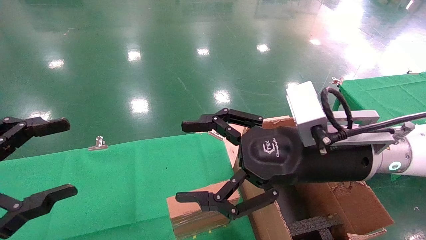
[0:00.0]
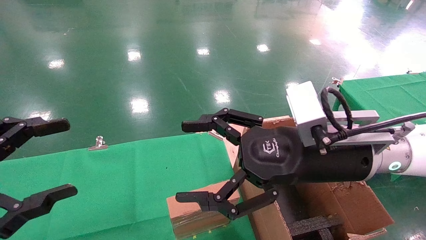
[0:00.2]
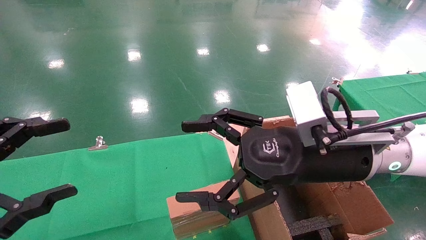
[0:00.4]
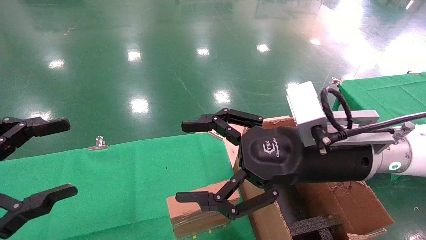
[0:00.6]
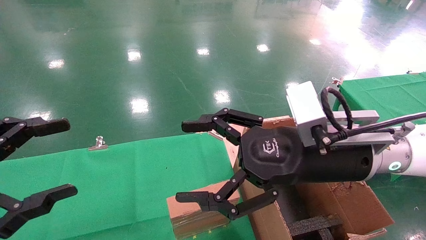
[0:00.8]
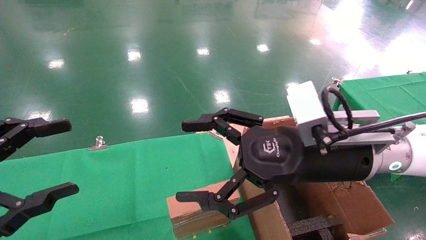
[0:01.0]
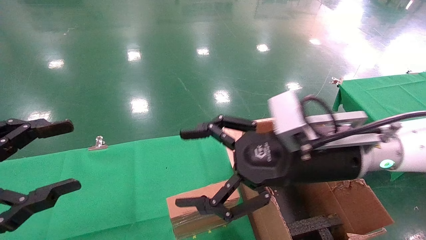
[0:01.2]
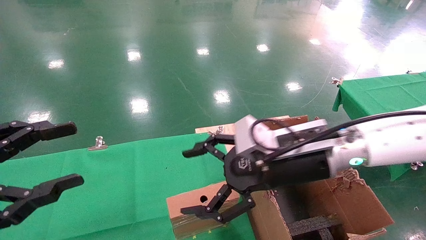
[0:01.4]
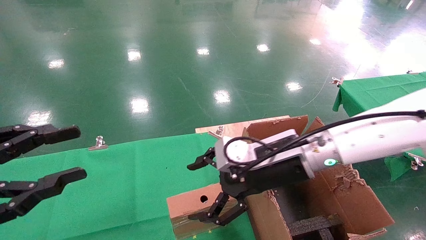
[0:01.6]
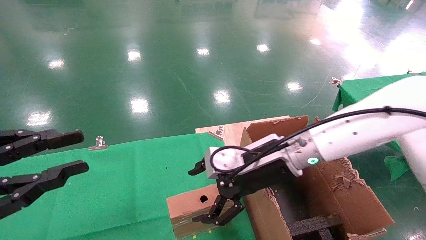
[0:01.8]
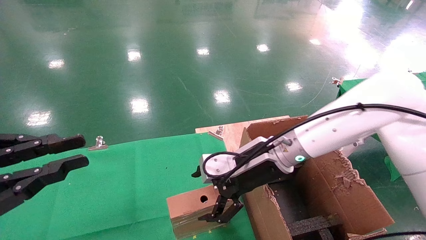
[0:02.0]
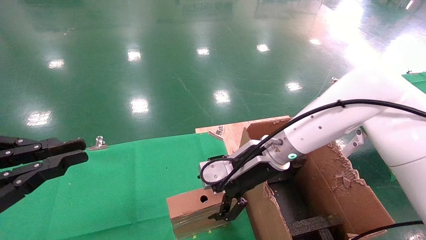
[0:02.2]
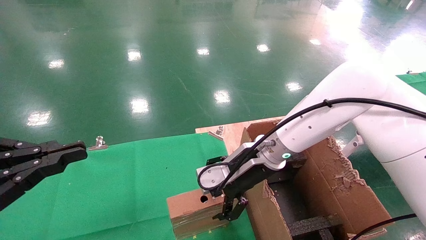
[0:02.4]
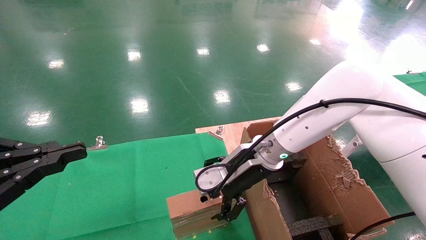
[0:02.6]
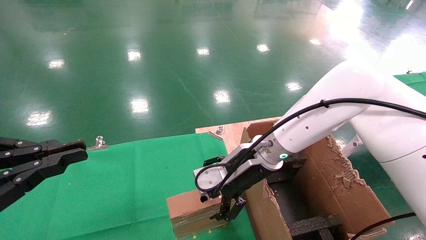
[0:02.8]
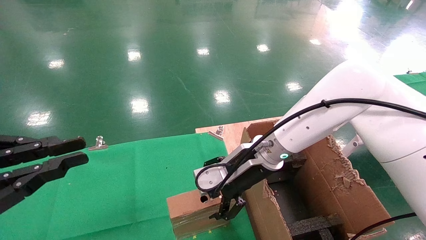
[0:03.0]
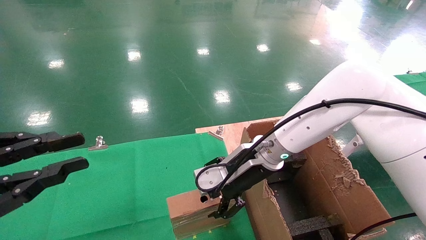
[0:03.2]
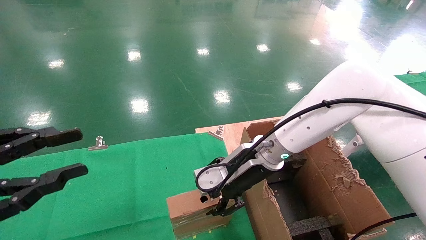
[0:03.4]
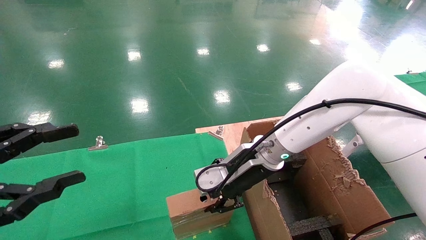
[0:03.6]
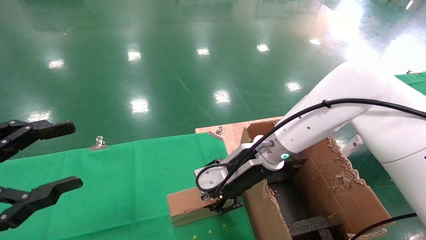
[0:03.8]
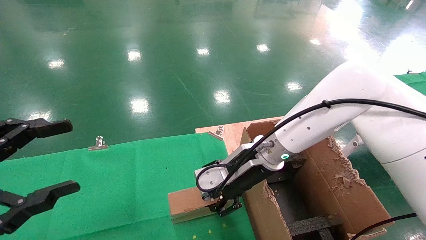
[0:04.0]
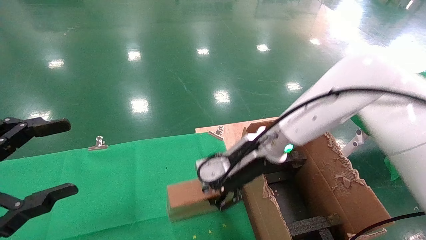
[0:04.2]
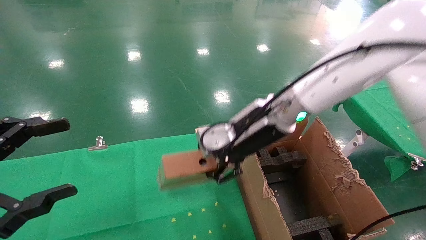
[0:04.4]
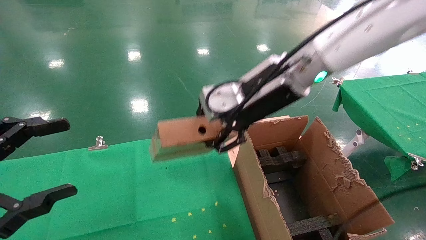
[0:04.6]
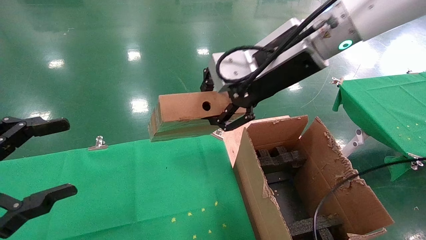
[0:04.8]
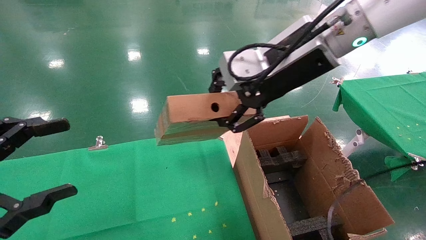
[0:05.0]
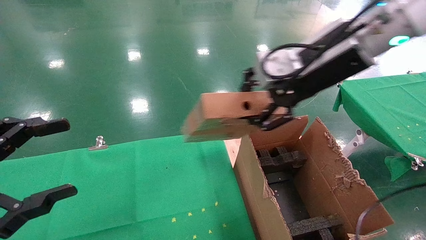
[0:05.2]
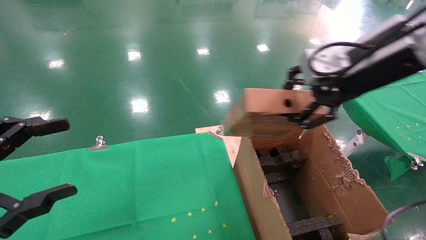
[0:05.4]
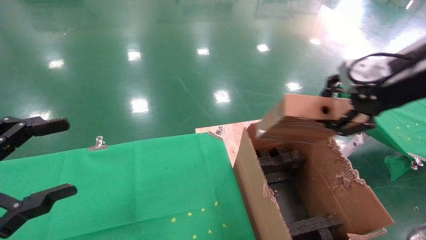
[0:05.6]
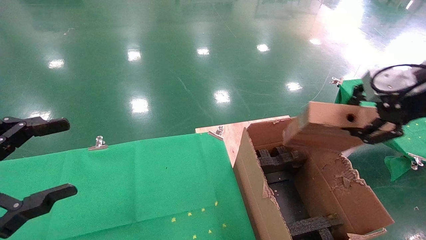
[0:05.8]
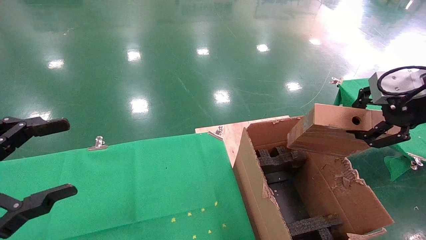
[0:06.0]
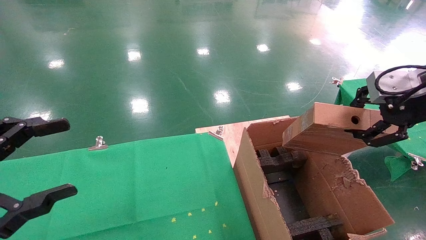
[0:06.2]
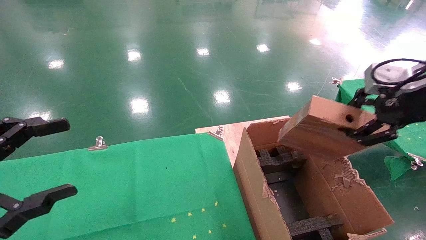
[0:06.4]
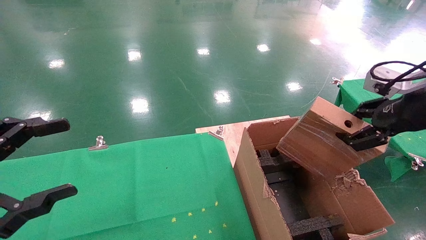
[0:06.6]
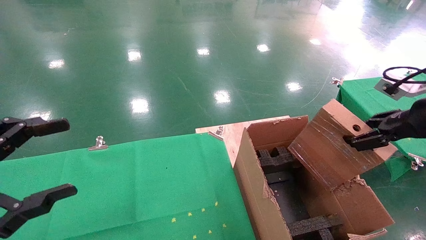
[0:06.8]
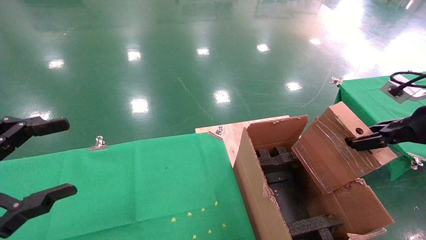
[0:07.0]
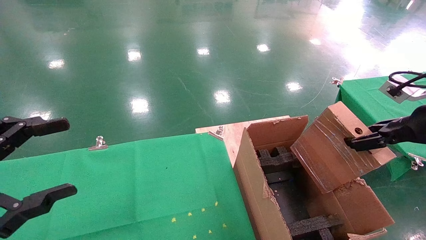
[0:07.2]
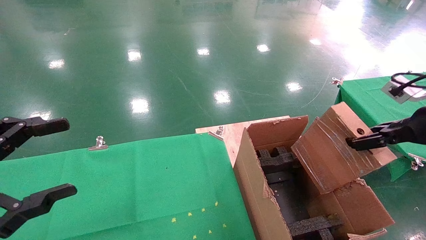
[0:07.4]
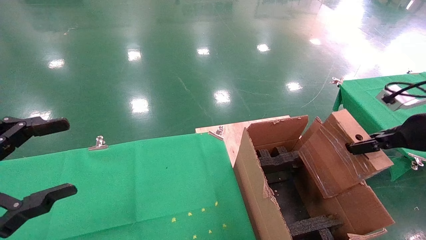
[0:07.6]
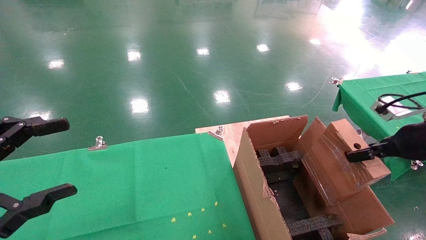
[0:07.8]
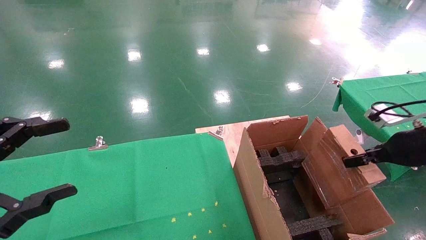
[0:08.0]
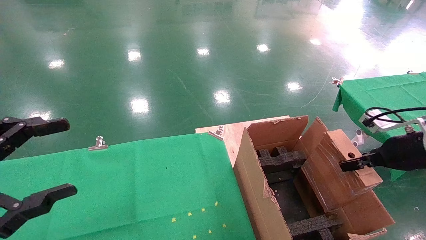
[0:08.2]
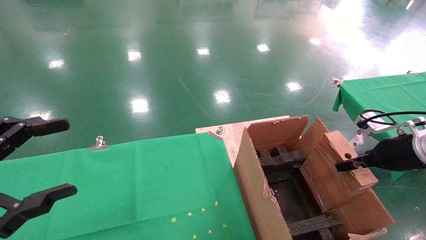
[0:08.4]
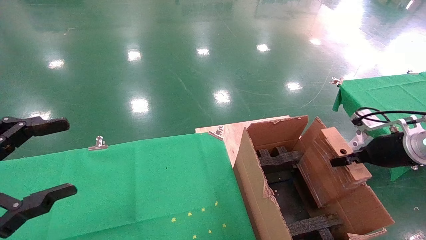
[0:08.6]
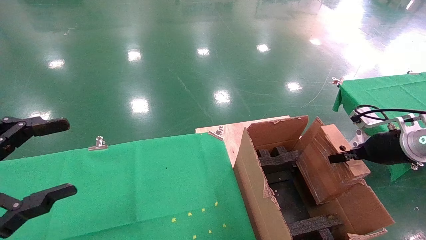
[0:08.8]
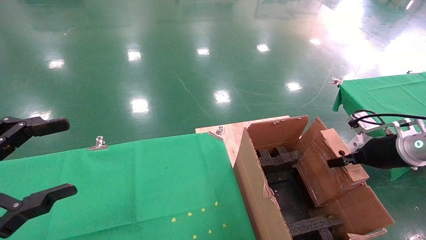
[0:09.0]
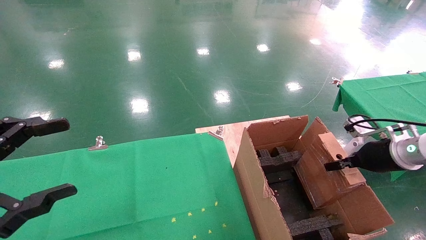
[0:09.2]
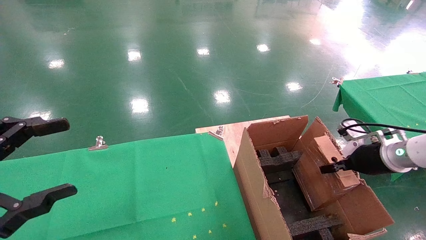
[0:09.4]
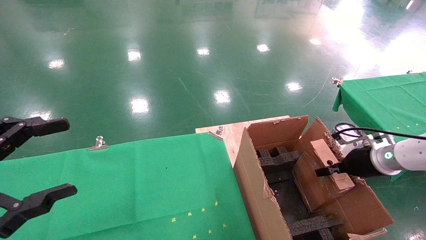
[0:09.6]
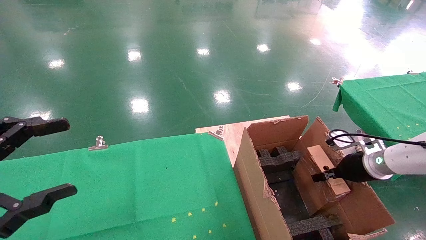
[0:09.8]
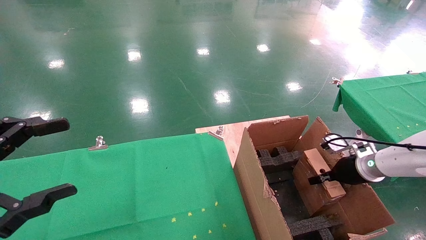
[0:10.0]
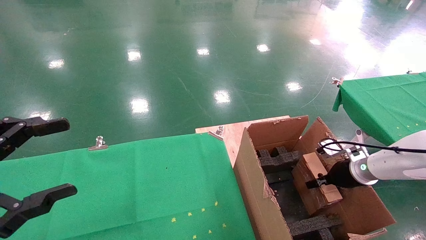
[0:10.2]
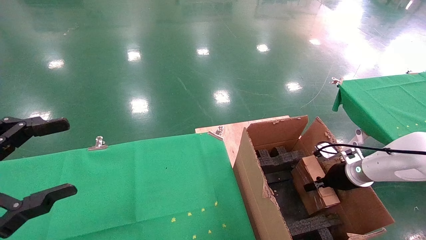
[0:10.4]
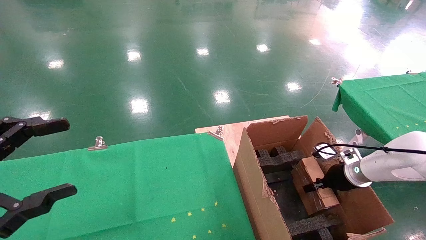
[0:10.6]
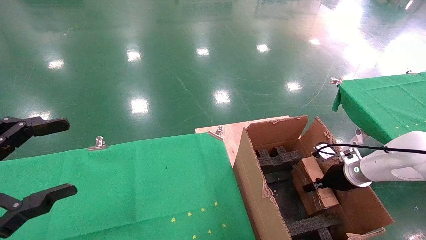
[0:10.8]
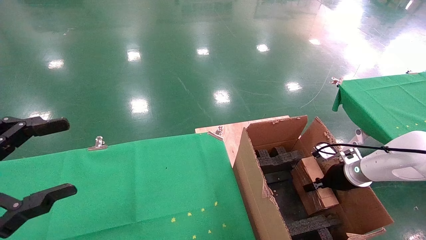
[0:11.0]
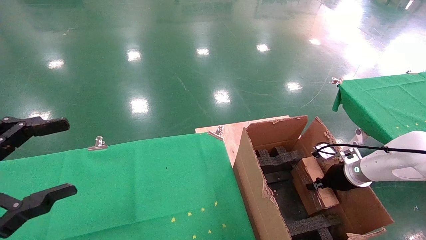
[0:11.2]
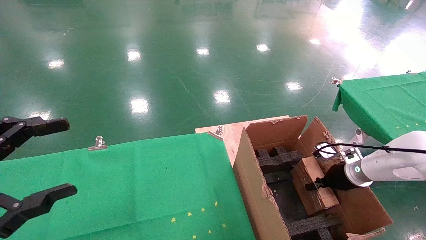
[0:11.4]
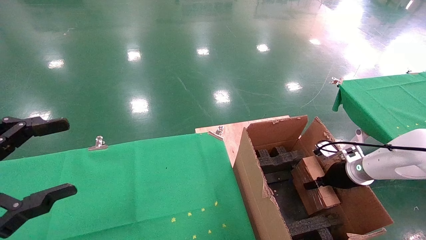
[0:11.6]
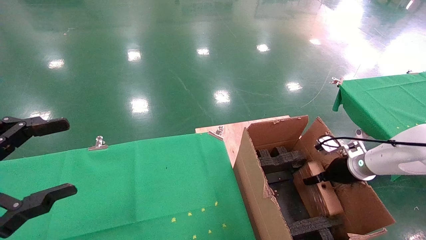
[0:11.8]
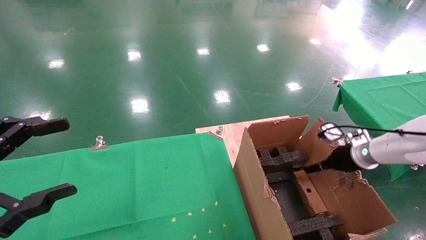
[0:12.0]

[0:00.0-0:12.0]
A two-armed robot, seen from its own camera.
Task of the whole recording: using a robotic arm to pick up a cardboard box and palace it the carton.
Step, 0:01.4 to 0:03.8: Pick up the mouse and the power cord paper box.
Step, 0:04.0 to 0:11.8: Place the mouse and the power cord paper box into the container.
0:00.0 to 0:01.6: The right gripper travels forward by approximately 5 cm.
0:01.6 to 0:03.0: The left gripper closes up. Meanwhile the right gripper is displaced forward by some 5 cm.
0:03.0 to 0:04.4: The right gripper heads upward, covering approximately 10 cm, and closes up. The left gripper opens up.
0:04.4 to 0:06.0: The right gripper is displaced to the right and backward by approximately 30 cm.
0:06.0 to 0:07.6: The right gripper travels downward and to the right by approximately 10 cm.
0:07.6 to 0:09.0: The right gripper goes roughly 10 cm downward and forward.
0:09.0 to 0:10.4: The right gripper moves downward and forward, about 15 cm.
0:10.4 to 0:12.0: The right gripper shifts about 5 cm upward, and opens.

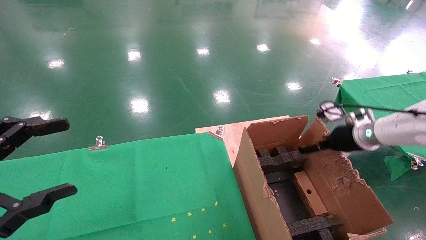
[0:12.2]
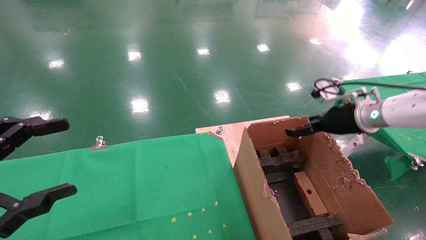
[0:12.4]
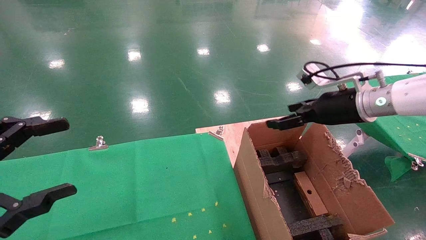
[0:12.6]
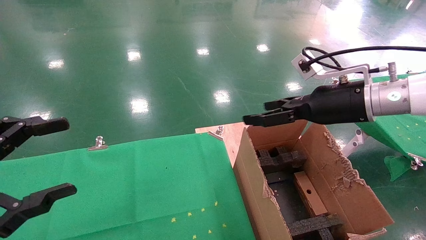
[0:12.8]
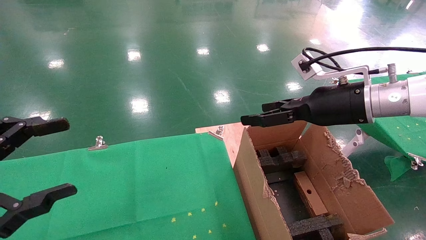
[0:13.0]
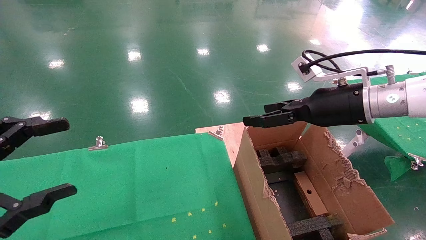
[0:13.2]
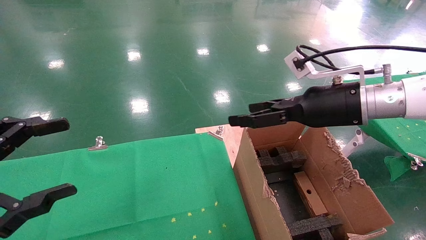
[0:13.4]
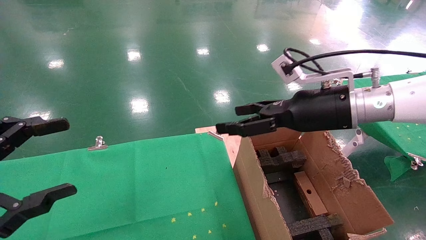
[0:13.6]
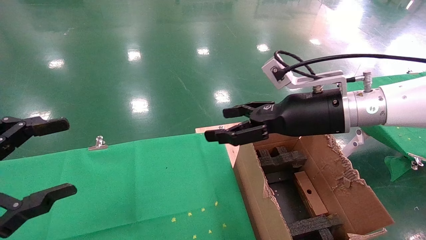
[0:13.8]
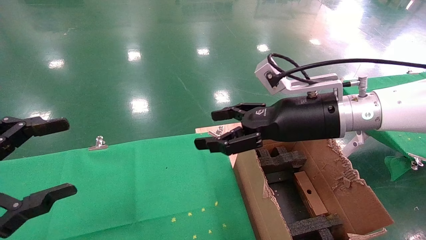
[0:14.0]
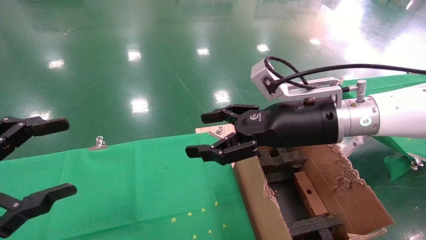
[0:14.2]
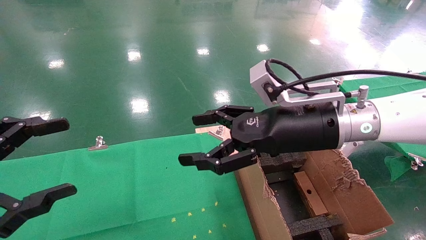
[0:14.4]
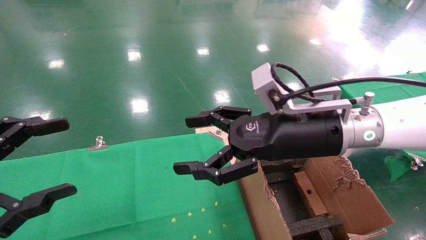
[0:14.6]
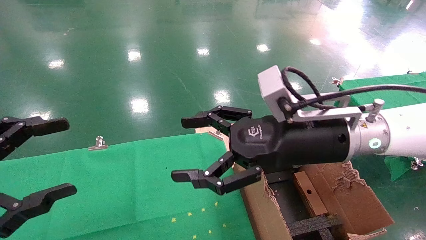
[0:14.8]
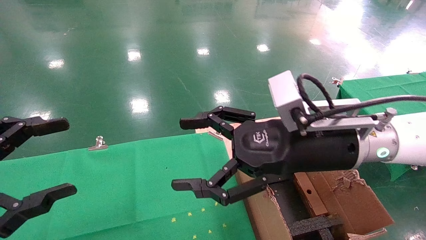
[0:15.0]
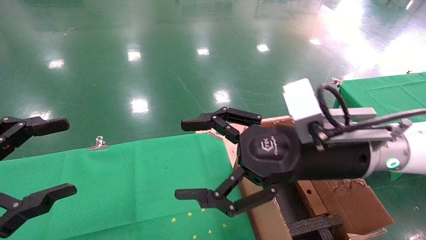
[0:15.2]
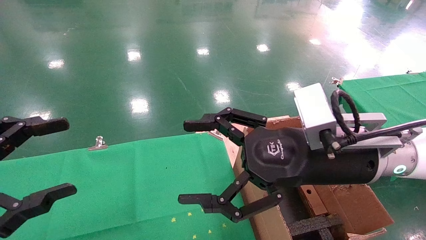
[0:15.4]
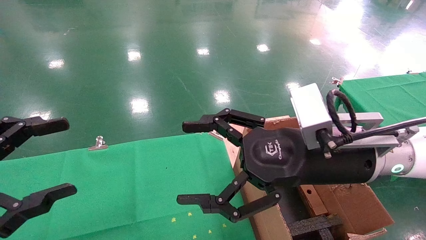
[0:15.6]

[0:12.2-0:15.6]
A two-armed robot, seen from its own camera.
Task of the whole recording: using a robotic arm to pick up a cardboard box and palace it the carton.
0:12.2 to 0:13.8: The right gripper travels to the left, upward and backward by some 20 cm.
0:13.8 to 0:15.6: The right gripper moves backward, approximately 10 cm.
